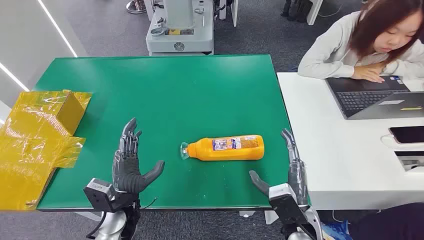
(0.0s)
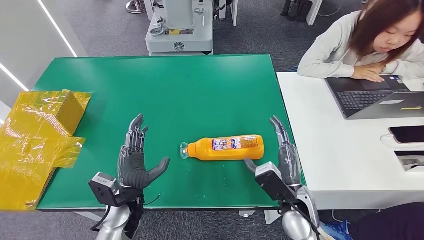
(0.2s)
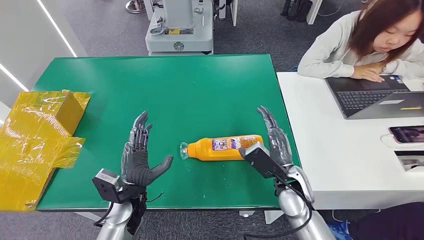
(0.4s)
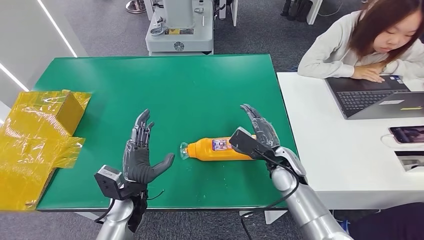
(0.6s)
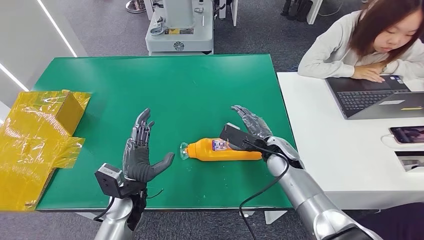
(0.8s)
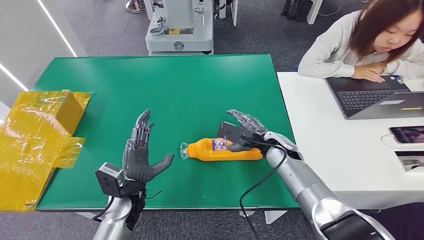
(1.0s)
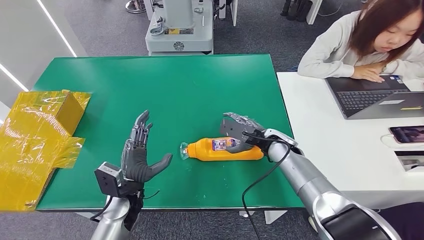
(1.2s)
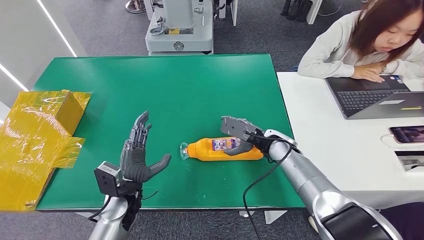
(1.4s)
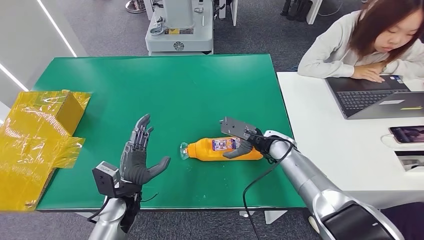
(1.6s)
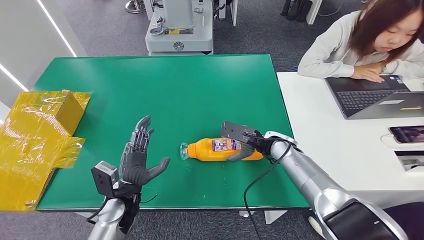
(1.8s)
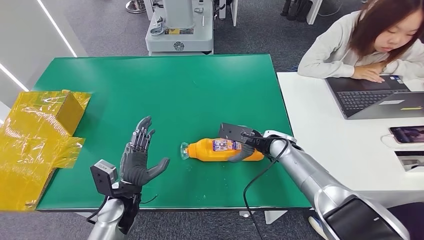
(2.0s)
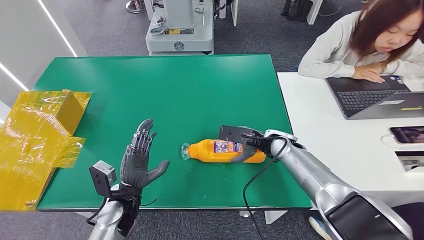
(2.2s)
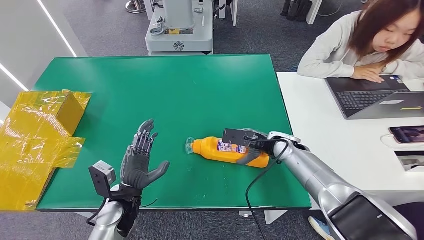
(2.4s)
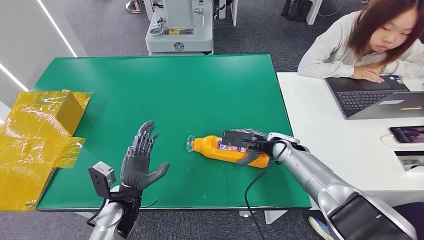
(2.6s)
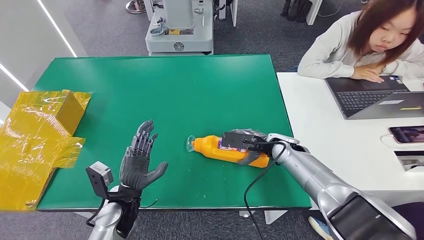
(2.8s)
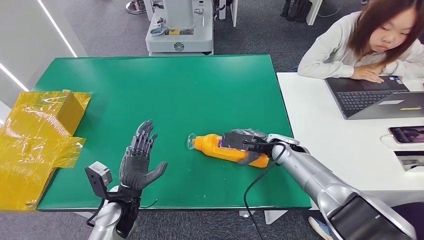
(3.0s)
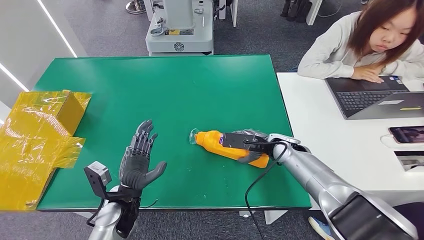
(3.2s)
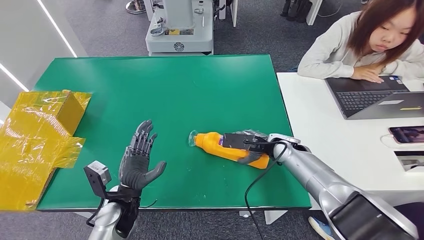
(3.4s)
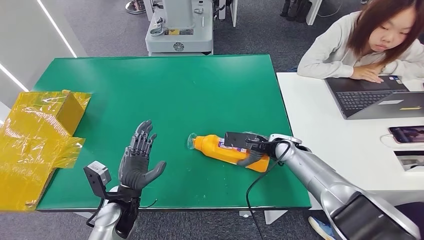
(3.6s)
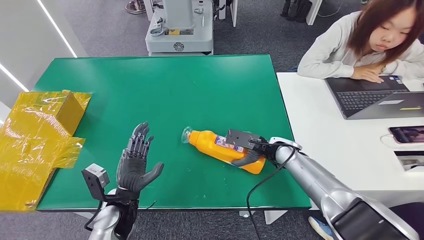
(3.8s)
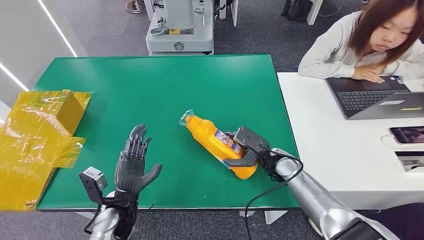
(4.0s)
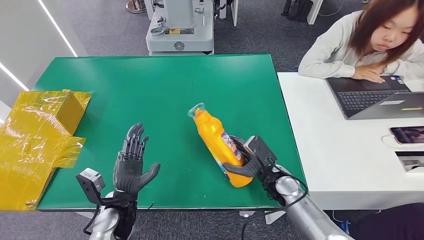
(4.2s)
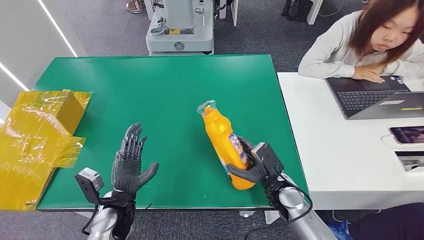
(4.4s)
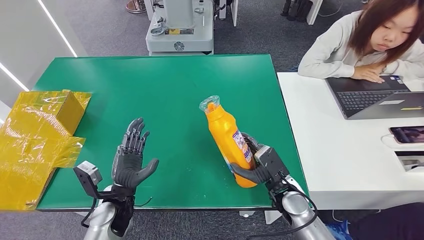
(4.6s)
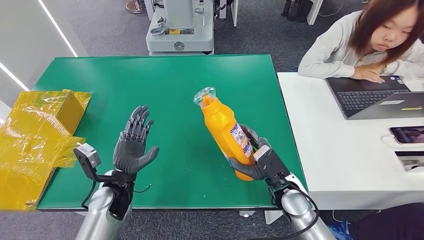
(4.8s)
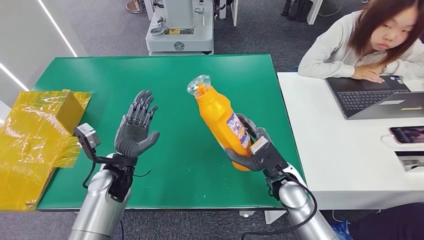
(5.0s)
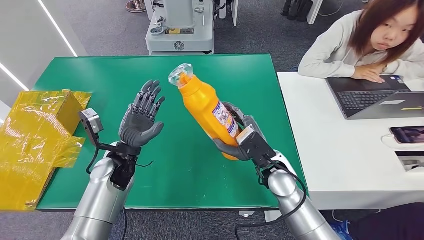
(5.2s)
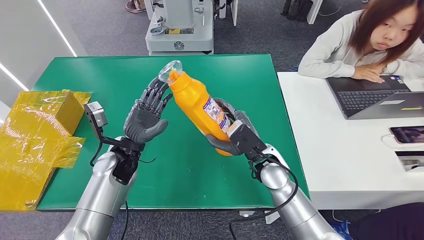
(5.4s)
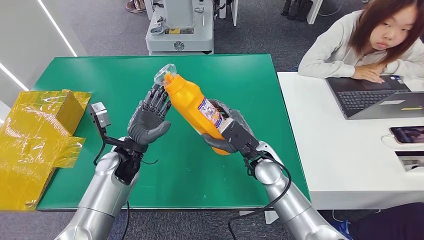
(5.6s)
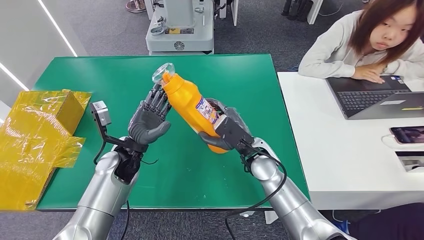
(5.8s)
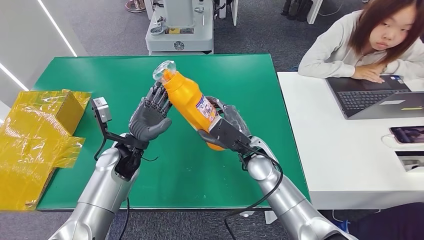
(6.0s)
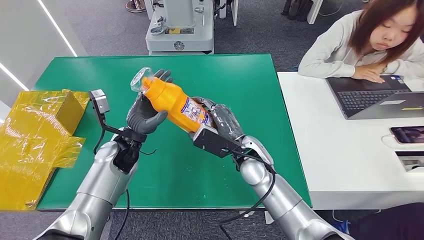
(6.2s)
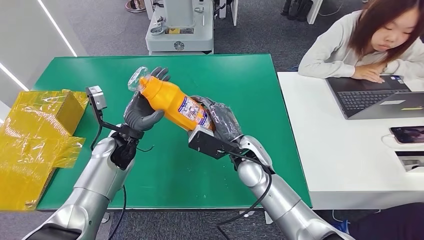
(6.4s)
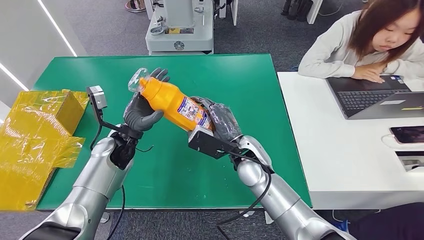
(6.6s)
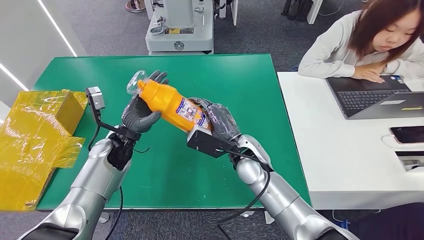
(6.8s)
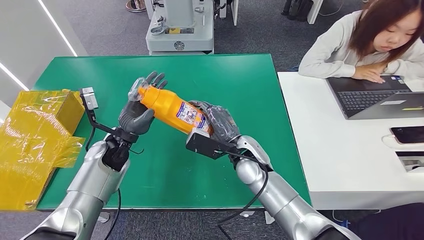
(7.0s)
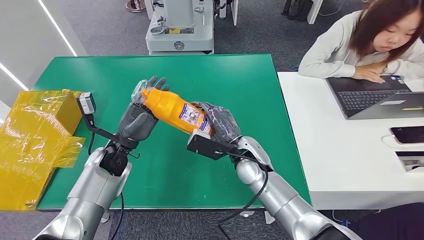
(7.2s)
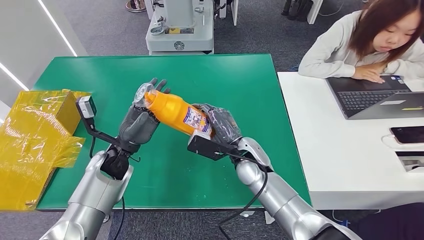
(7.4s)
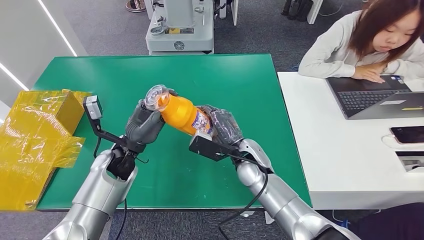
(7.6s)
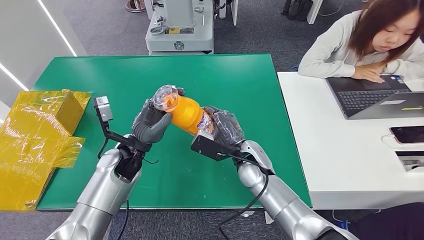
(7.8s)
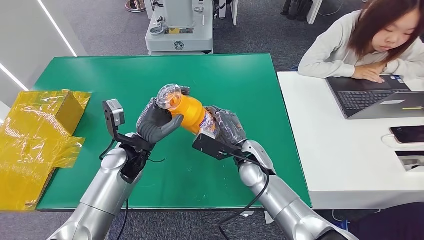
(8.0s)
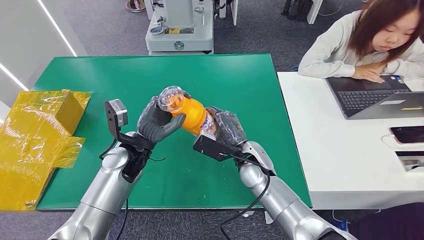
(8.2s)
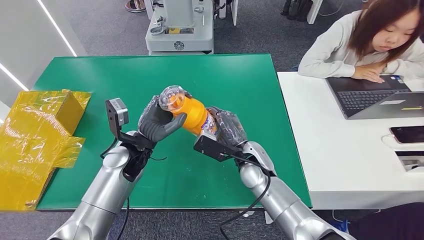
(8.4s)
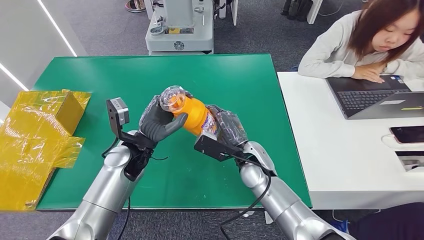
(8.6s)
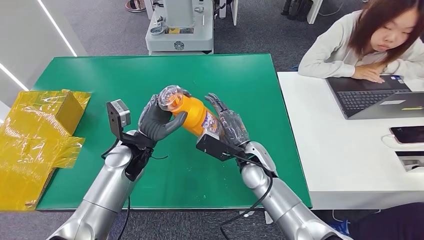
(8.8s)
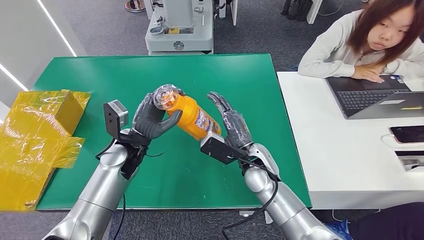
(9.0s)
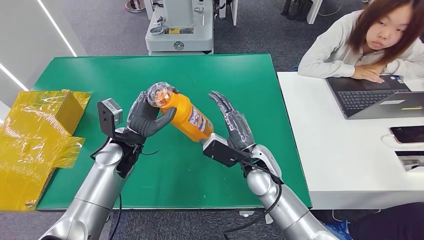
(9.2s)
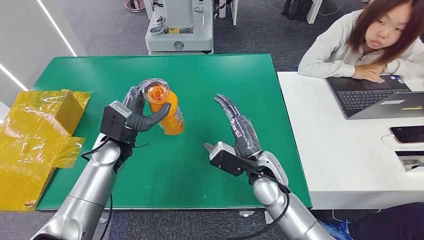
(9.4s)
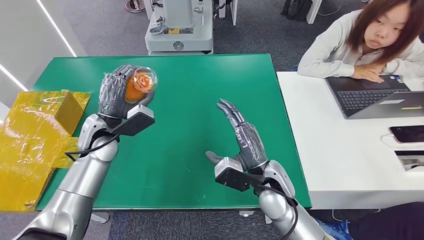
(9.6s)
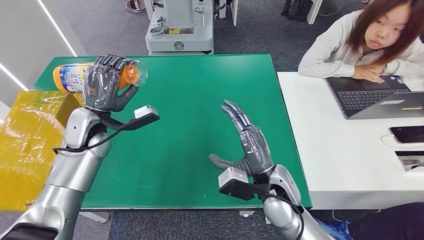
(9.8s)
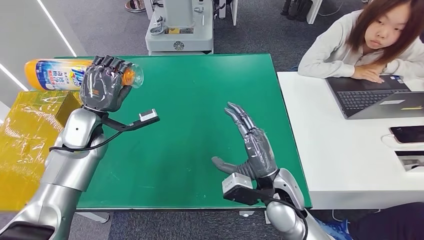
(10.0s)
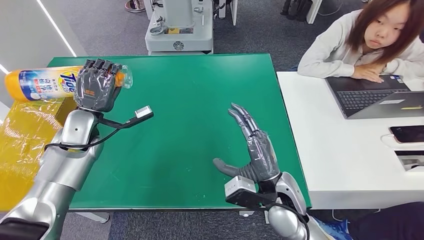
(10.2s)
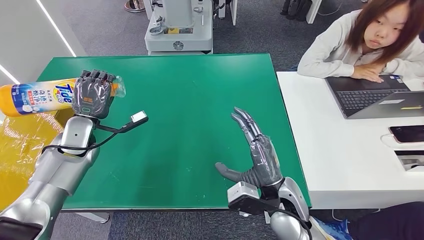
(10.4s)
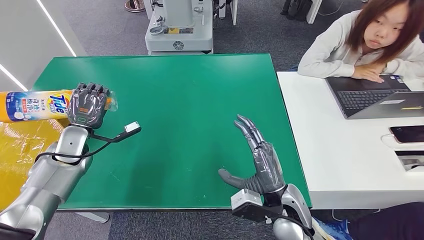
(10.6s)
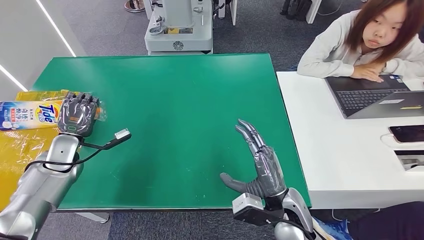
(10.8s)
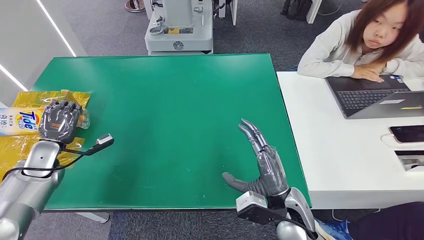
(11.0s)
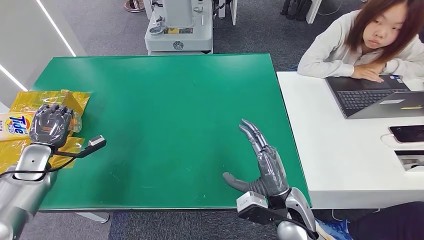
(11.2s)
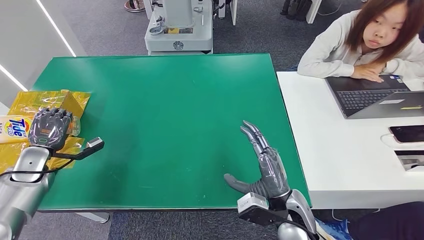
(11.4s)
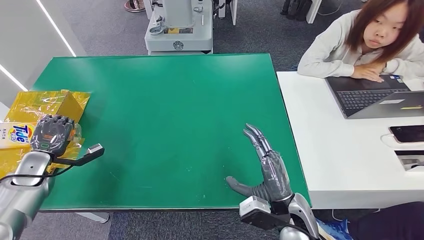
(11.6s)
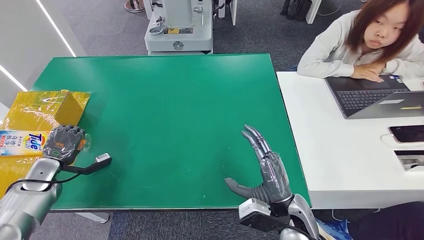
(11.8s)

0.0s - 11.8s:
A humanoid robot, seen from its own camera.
Step, 0.0s - 5.2s: Pick up the bottle from the table.
3.0s - 4.4s: The right hand moves backward and downward, approximately 15 cm.
4.4s - 6.0s: The left hand moves forward and upward, about 15 cm, while the right hand shifts roughly 15 cm upward, to the left and forward.
7.4s - 8.8s: The left hand is displaced to the right by roughly 5 cm.
10.4s - 11.8s: The left hand heads to the left, downward and backward, covering approximately 20 cm.

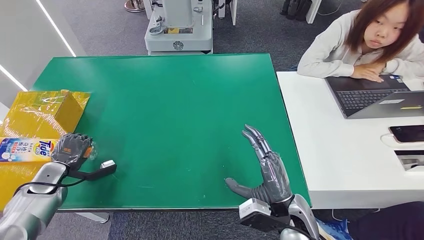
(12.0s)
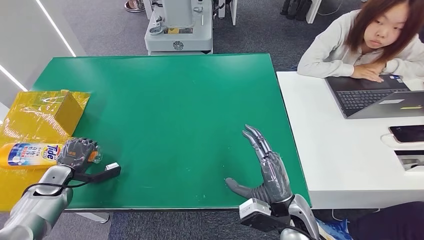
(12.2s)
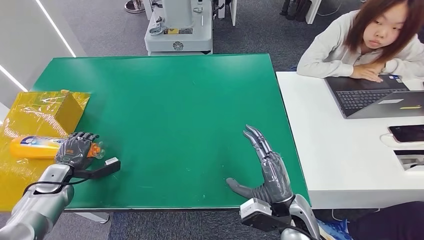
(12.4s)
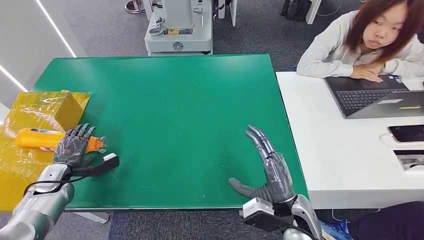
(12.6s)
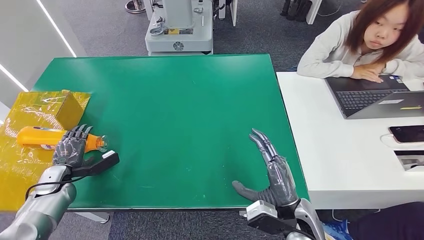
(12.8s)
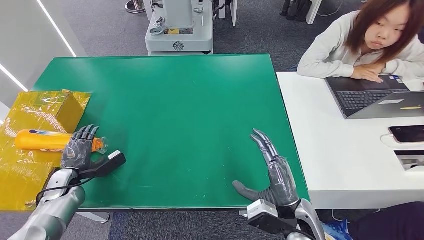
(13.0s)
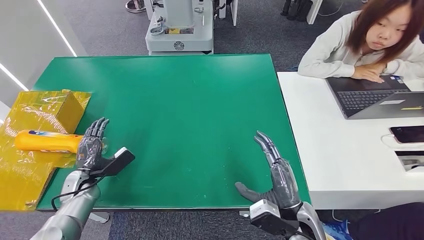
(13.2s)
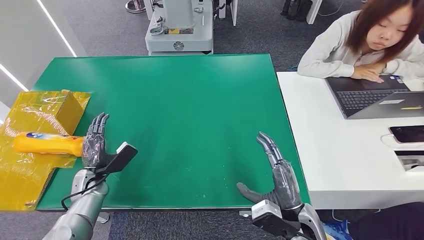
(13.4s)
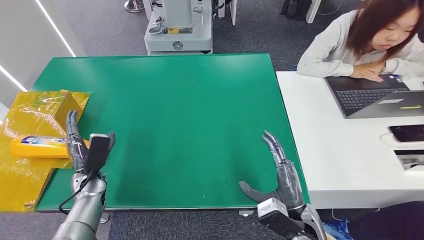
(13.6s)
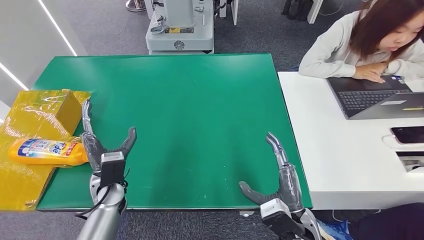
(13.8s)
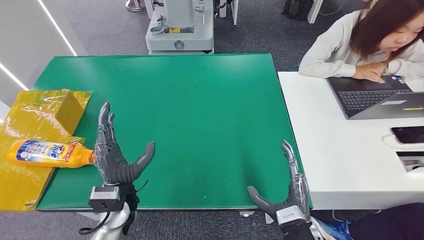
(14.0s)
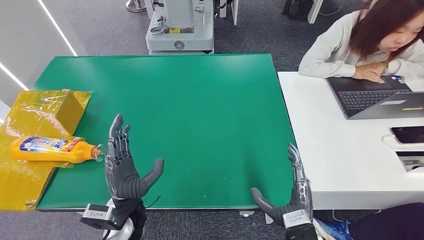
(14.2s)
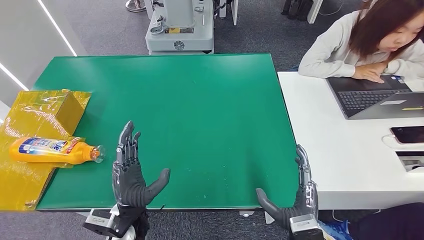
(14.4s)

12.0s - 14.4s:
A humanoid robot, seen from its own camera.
Step, 12.0s - 14.4s: Turn the bottle to the front side.
12.0s - 13.2s: The left hand goes some 10 cm to the right.
13.2s - 14.4s: The left hand is displaced to the right and backward by roughly 25 cm, while the right hand goes roughly 5 cm backward.
